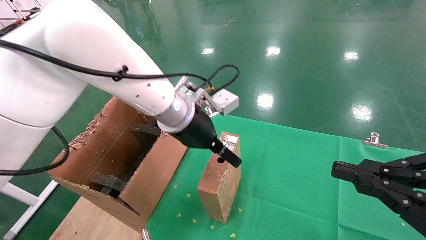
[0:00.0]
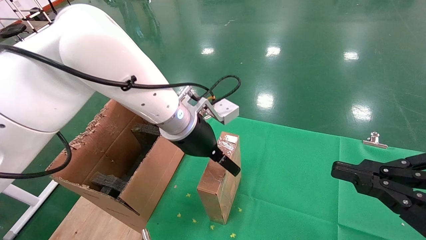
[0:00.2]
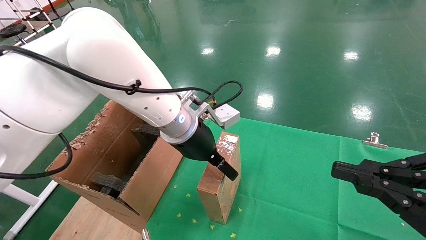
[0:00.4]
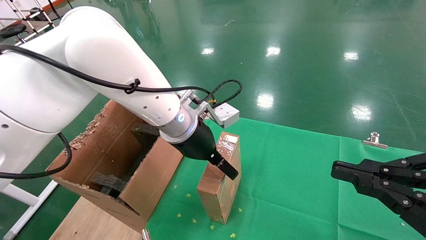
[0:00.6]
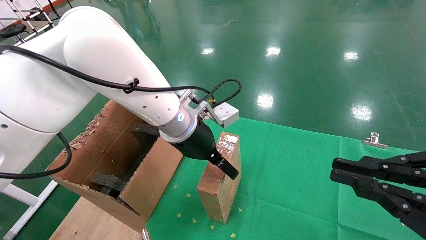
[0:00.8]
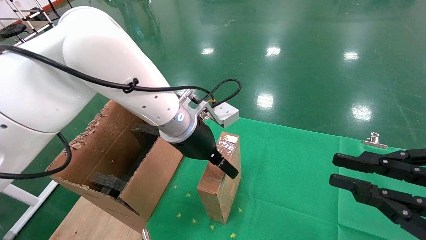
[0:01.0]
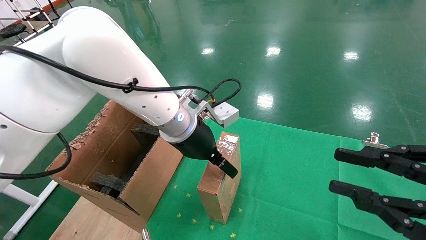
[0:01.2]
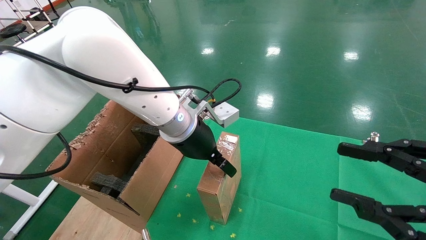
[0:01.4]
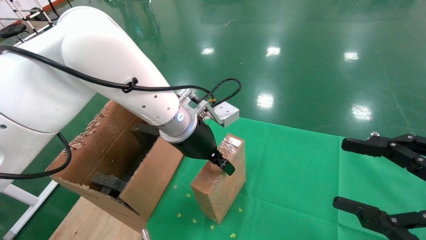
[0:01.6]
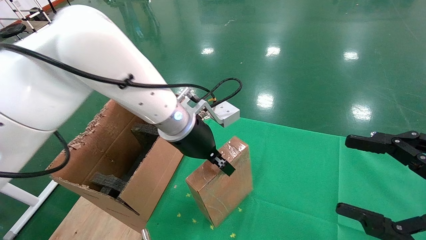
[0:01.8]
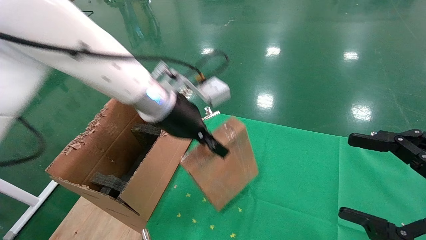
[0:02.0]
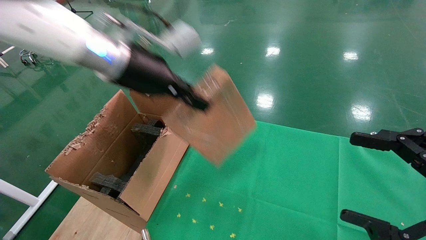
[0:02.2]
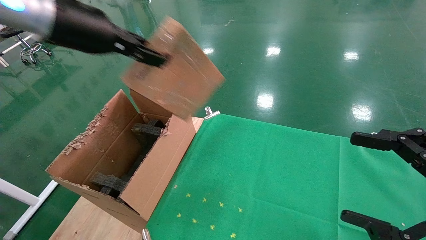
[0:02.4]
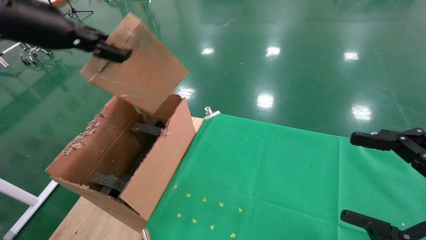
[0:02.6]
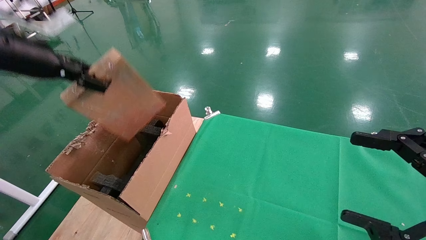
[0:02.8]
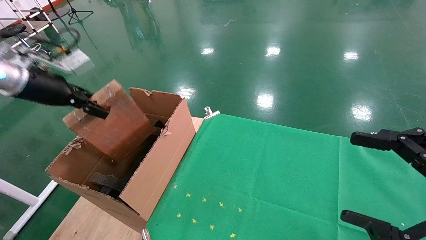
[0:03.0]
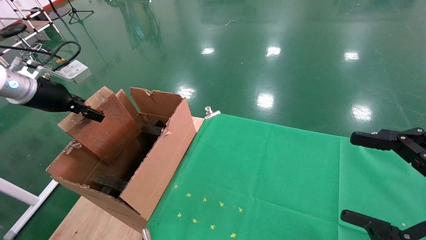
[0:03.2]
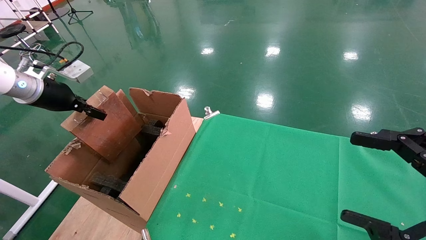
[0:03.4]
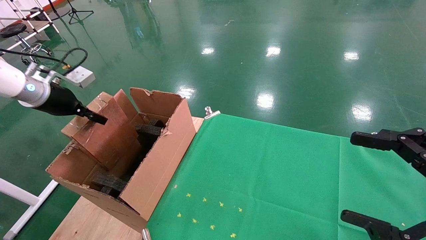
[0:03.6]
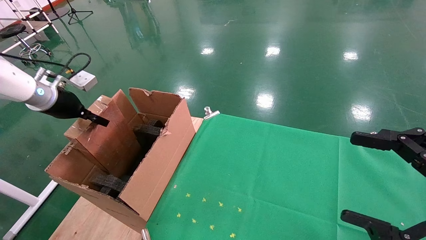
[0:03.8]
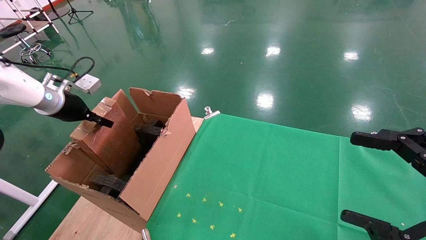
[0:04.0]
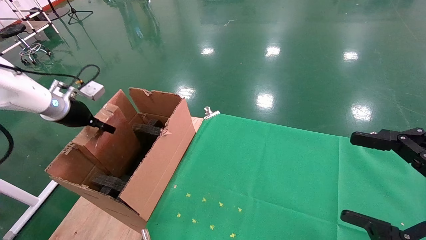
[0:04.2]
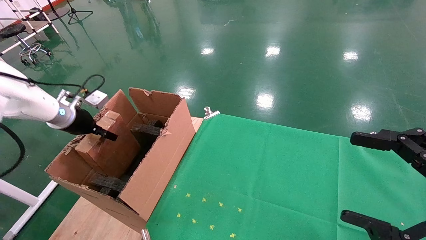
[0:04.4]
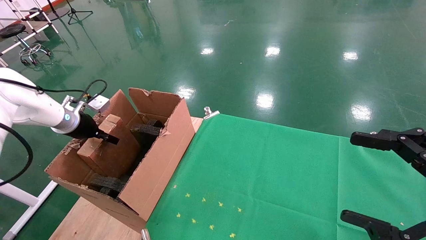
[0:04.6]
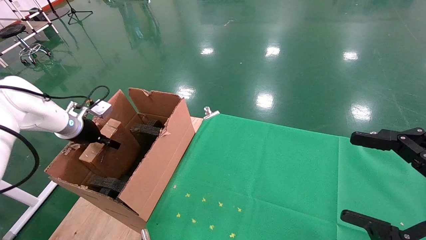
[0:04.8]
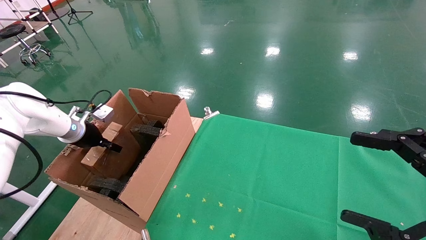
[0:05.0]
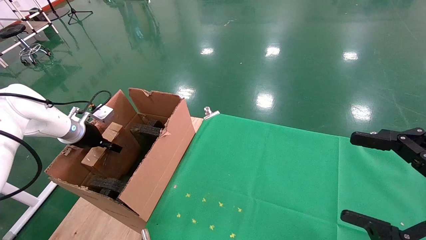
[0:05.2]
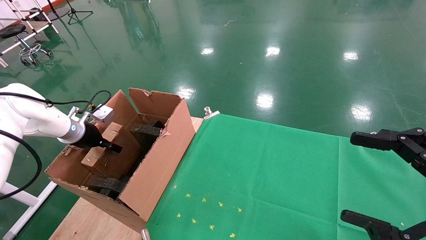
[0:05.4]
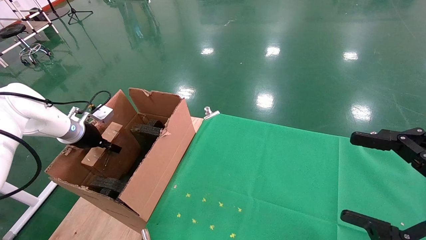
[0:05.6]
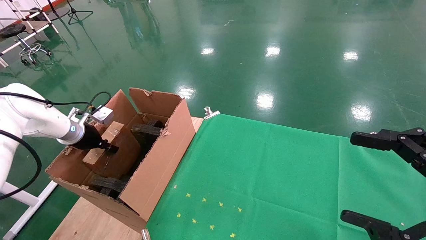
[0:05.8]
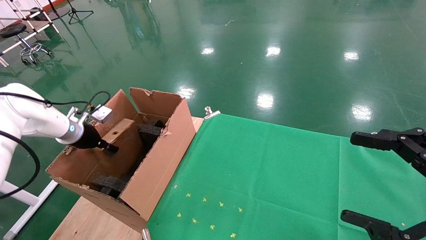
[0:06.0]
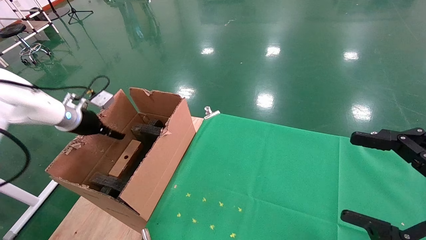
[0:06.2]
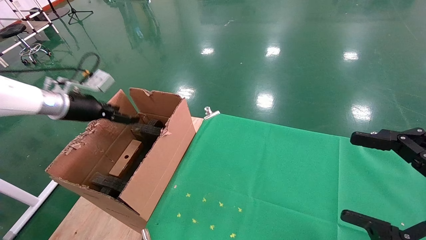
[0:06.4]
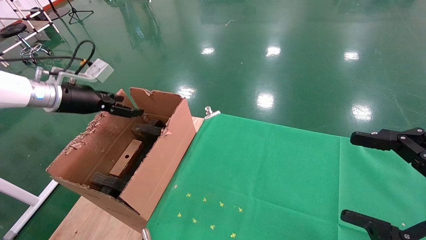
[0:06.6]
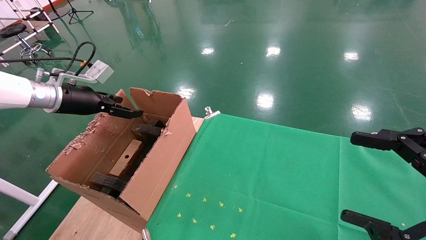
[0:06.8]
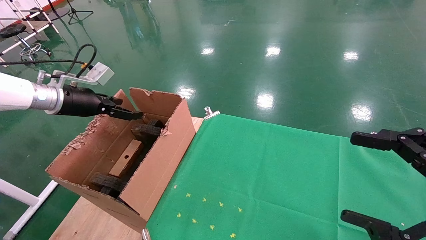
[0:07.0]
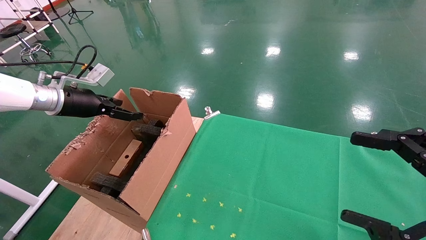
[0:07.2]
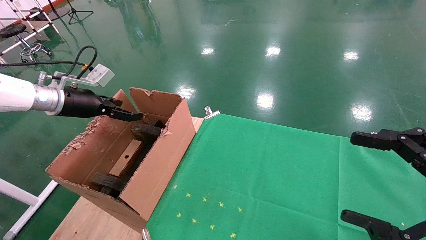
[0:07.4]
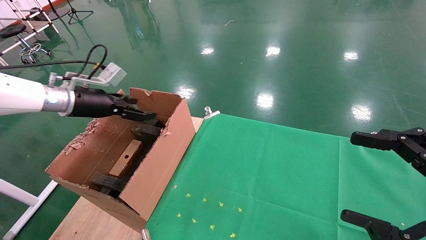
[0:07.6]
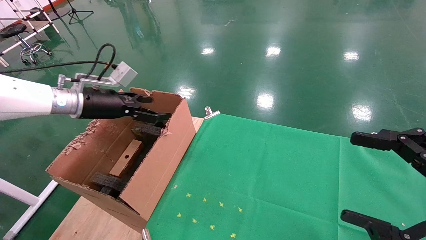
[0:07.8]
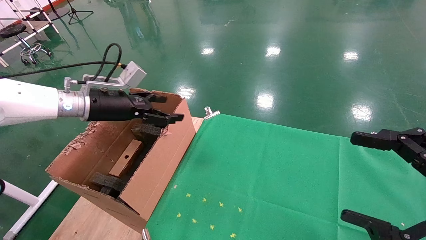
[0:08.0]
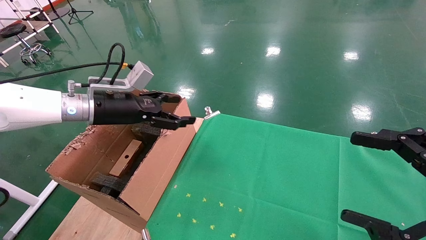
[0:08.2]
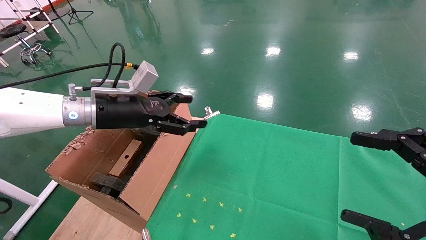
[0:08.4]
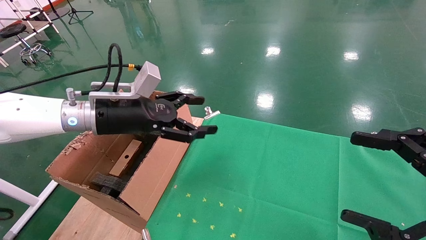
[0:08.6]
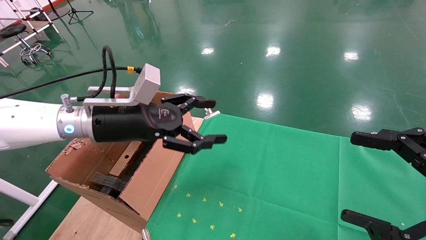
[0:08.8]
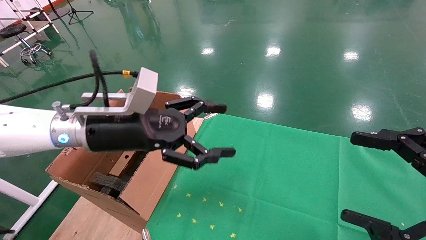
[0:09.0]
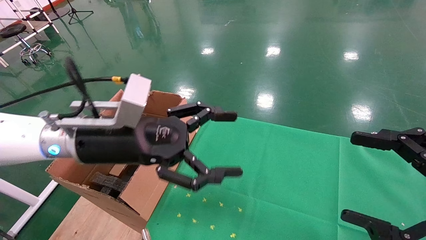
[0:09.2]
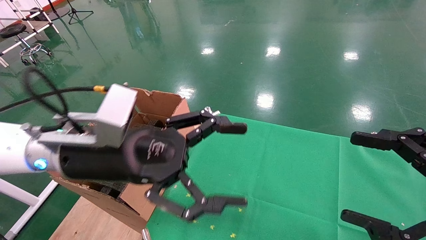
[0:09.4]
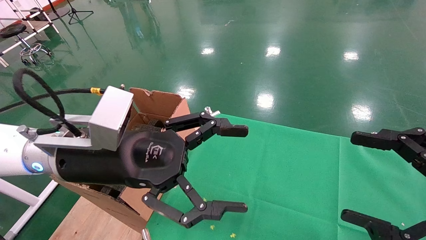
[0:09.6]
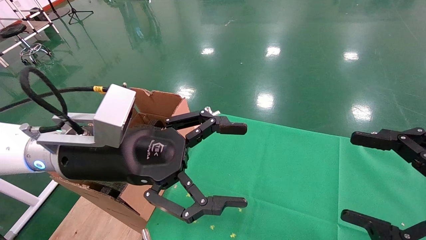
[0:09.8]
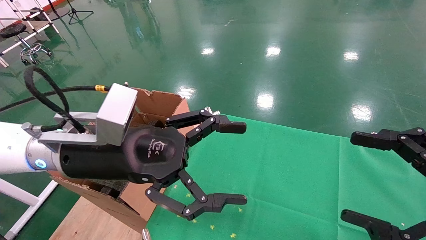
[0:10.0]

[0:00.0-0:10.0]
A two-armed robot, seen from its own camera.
Task of the whole recording: using a robotic arm to pick up a cardboard box and palace it the carton.
Step, 0:02.0 to 0:06.6: Place the mouse and the power cord paper box into the container.
0:00.0 to 0:01.4: The right gripper opens its fingers.
0:01.4 to 0:02.8: The right gripper opens. The left gripper goes approximately 30 cm to the left and upward, and closes its fingers.
0:02.8 to 0:04.2: The left gripper moves downward, forward and to the left, roughly 20 cm.
0:04.2 to 0:05.8: The left gripper is displaced downward by approximately 5 cm.
0:05.8 to 0:07.2: The left gripper goes approximately 10 cm upward, and opens up.
0:07.2 to 0:08.6: The left gripper goes approximately 15 cm to the right.
0:08.6 to 0:10.0: The left gripper is displaced backward and to the right by approximately 10 cm.

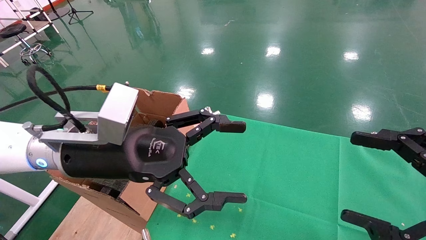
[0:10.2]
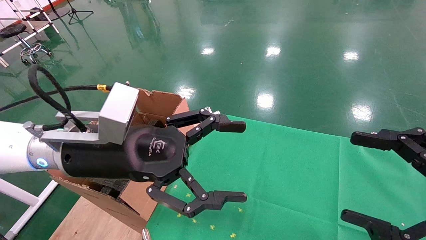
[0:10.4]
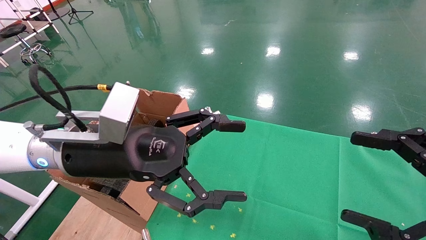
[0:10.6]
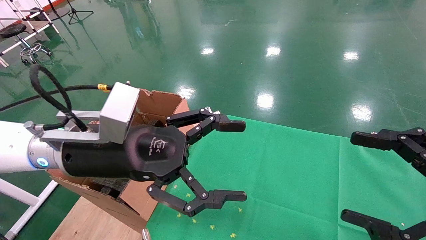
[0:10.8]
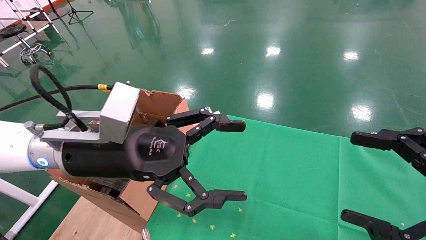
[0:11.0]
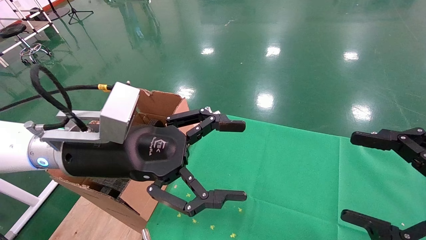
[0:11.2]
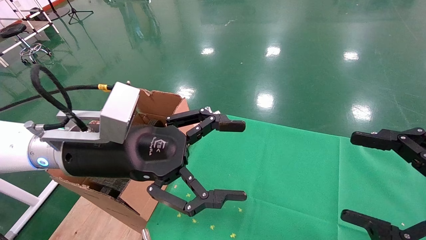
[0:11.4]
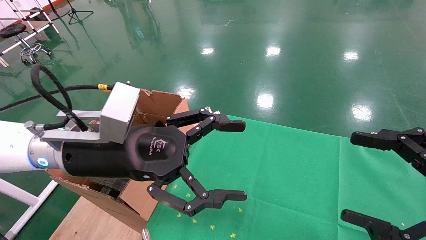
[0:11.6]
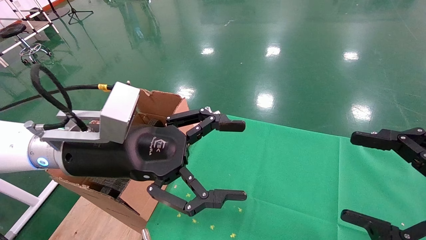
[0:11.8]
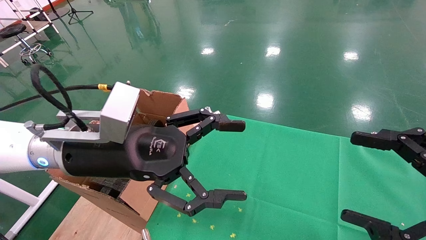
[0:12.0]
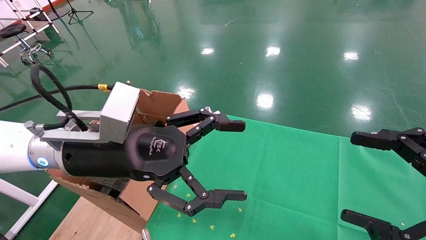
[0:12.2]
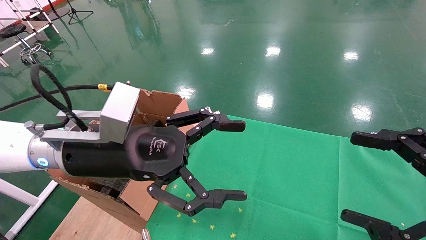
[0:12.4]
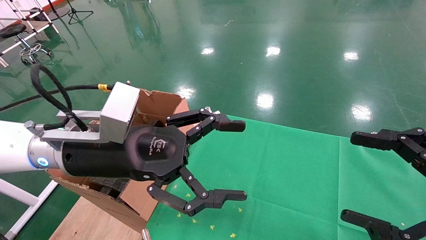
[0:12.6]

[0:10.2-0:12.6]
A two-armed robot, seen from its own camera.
Task of the whole recording: using a robotic arm to pick up a cardboard box and palace it the carton.
0:10.2 to 0:12.6: Both grippers stay about where they are.
